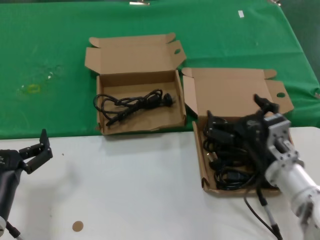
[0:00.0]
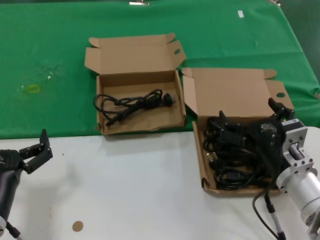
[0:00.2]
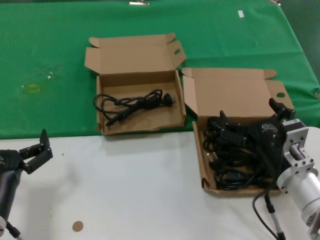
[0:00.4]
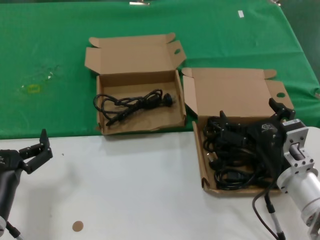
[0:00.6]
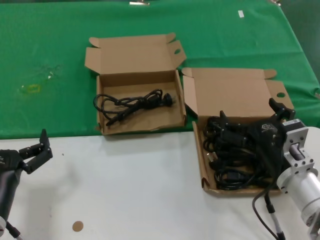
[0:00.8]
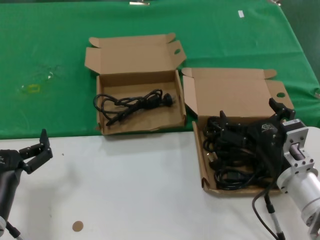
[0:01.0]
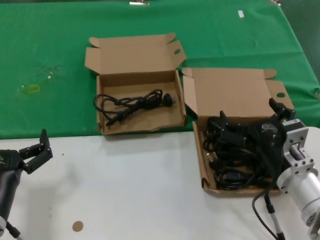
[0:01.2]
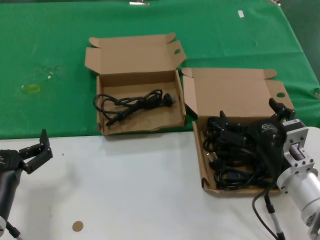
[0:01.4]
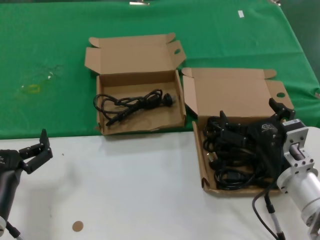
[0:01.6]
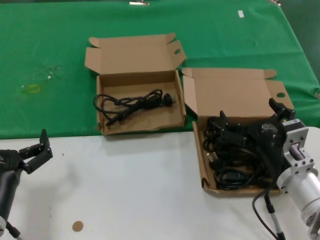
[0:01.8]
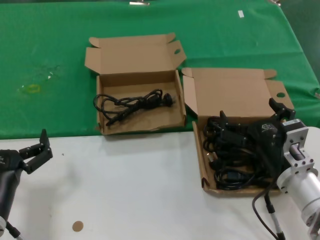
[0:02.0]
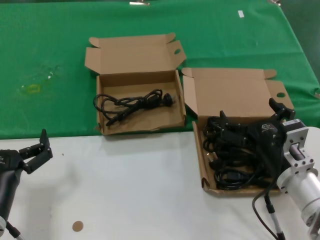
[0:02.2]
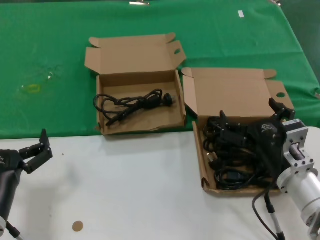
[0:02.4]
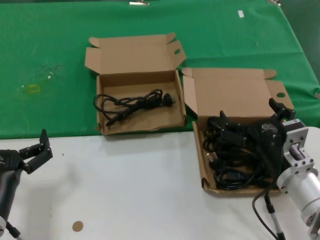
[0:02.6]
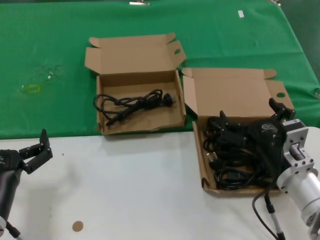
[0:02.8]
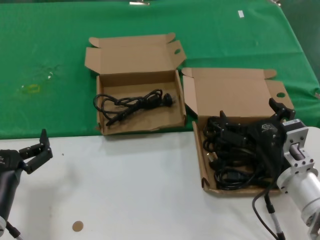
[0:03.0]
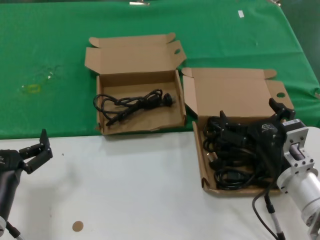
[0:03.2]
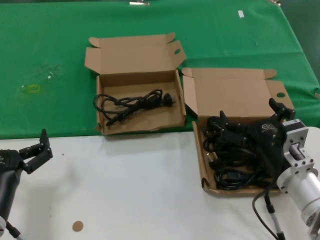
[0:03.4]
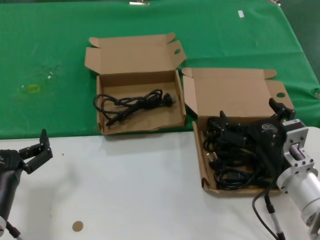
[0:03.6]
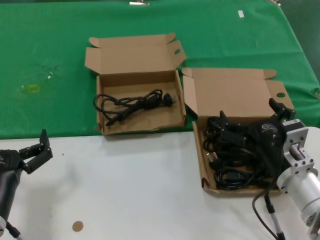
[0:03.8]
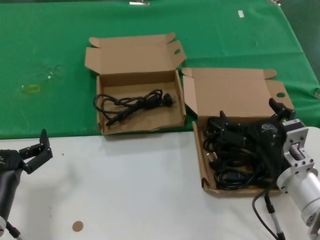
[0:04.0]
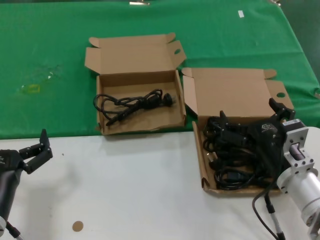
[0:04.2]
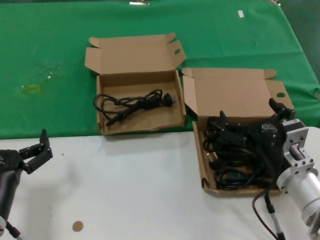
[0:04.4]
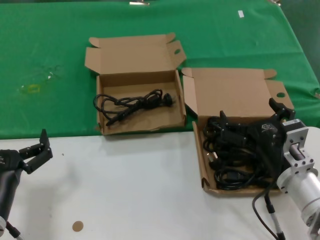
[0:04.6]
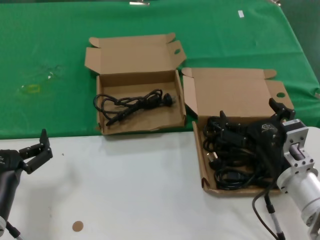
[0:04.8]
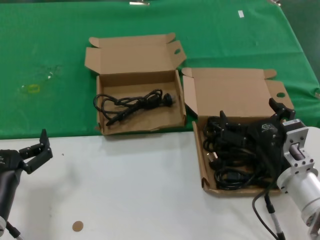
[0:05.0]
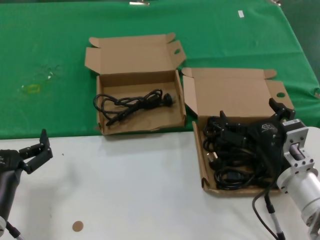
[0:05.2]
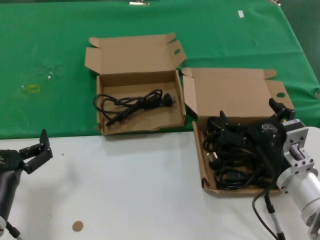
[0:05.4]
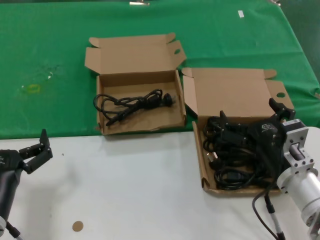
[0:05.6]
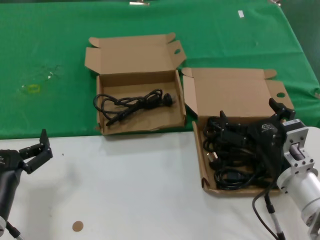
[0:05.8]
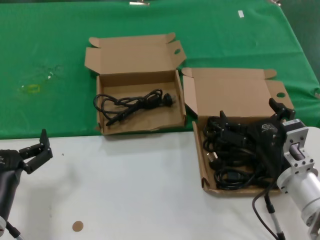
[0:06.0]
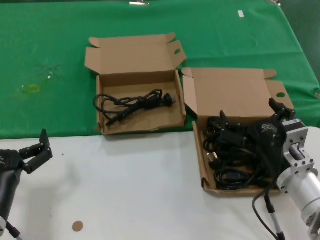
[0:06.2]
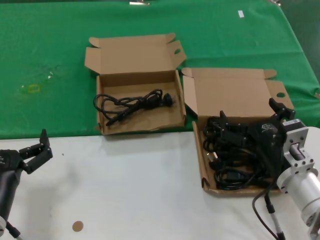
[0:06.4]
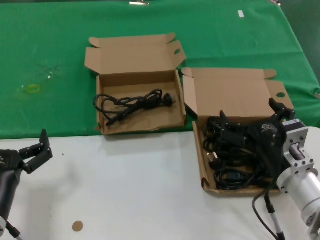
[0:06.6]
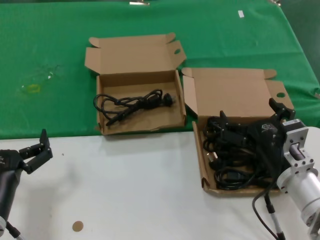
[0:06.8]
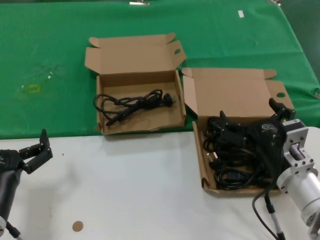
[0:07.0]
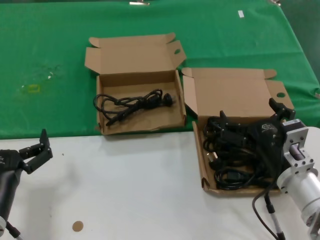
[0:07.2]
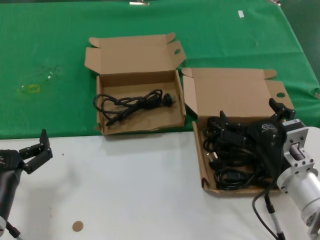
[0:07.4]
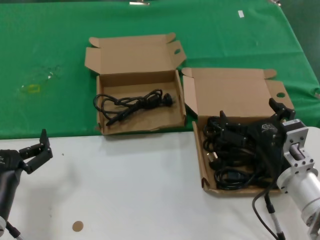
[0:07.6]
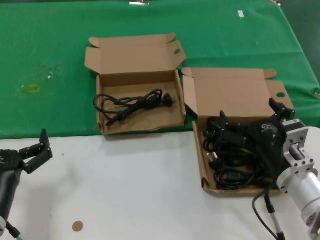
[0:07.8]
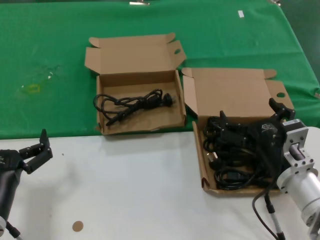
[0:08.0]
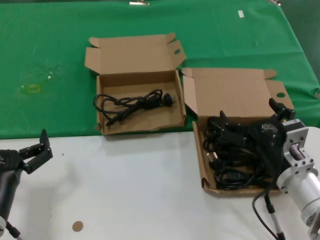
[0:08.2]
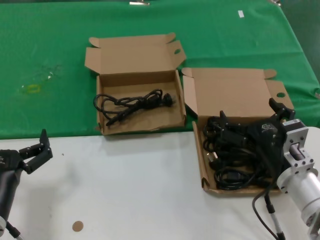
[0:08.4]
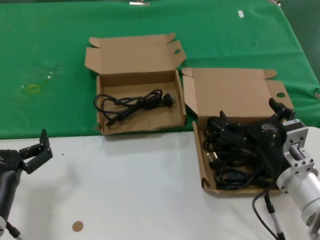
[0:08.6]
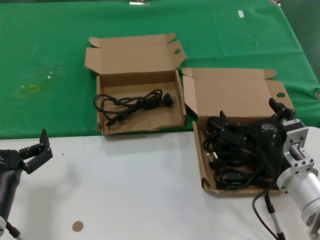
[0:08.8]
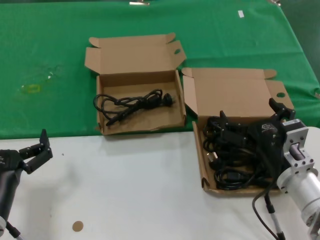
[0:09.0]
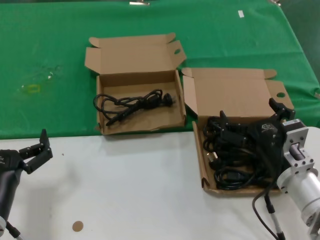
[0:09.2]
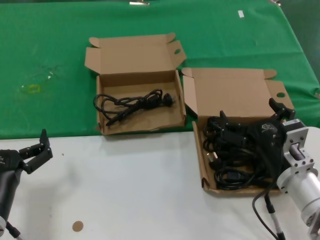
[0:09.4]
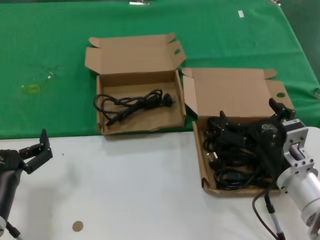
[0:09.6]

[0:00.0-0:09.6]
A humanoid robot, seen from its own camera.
Task of the whole recording: take the parts from the box containing them and put them into an empty box.
0:00.0 to 0:01.6: The hands stay close to where they were, moving slightly.
0:01.6 to 0:09.6: Both hands stay put.

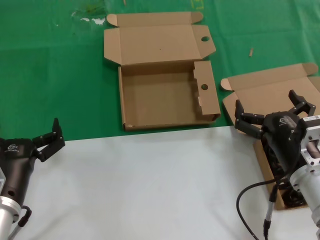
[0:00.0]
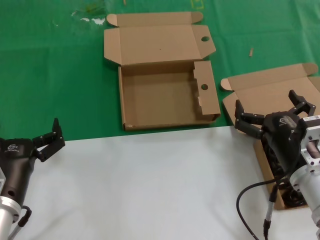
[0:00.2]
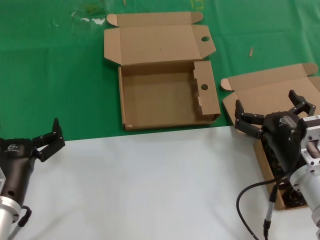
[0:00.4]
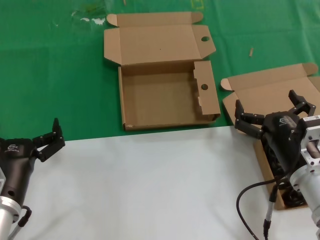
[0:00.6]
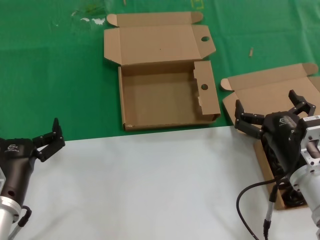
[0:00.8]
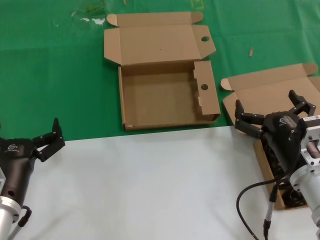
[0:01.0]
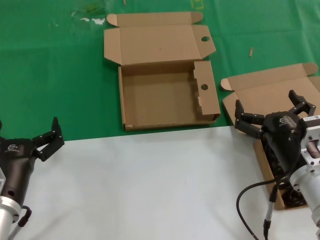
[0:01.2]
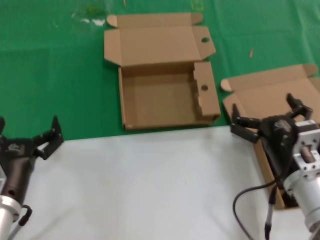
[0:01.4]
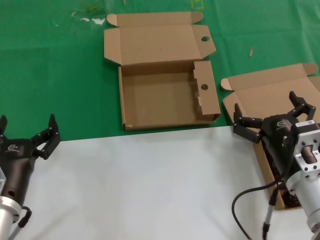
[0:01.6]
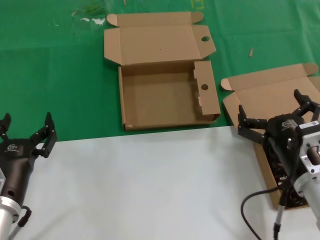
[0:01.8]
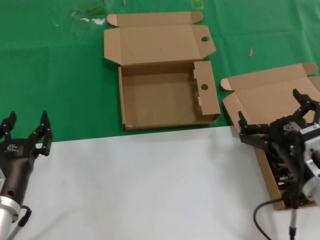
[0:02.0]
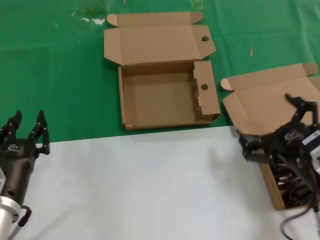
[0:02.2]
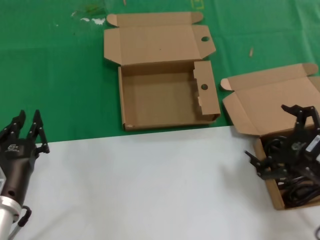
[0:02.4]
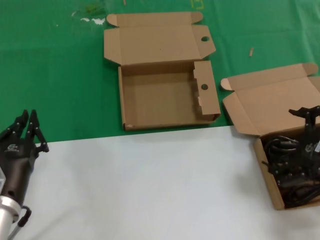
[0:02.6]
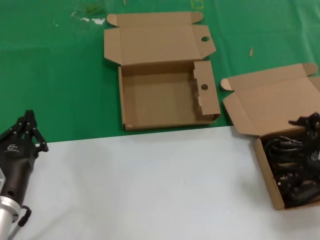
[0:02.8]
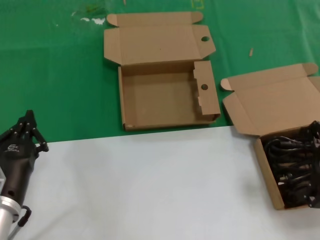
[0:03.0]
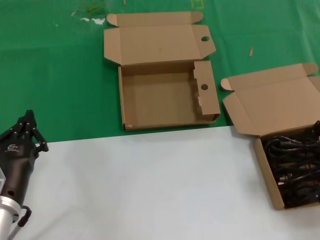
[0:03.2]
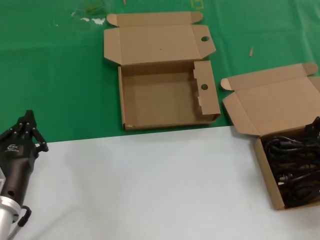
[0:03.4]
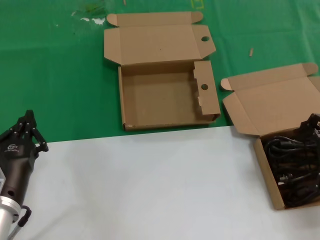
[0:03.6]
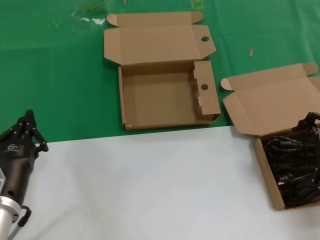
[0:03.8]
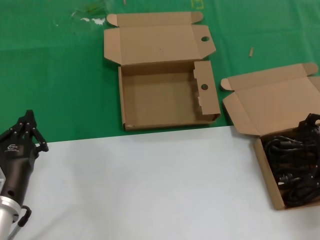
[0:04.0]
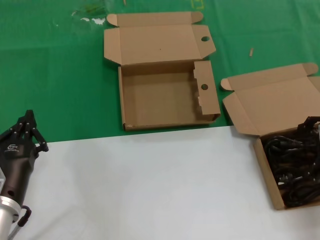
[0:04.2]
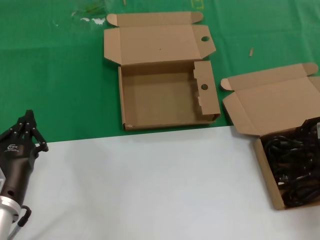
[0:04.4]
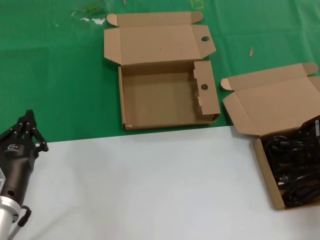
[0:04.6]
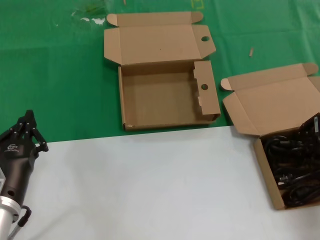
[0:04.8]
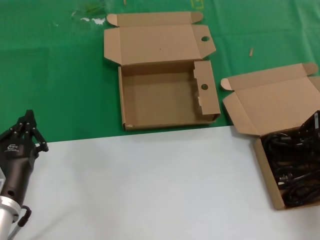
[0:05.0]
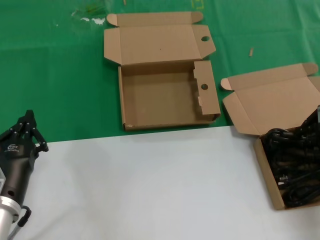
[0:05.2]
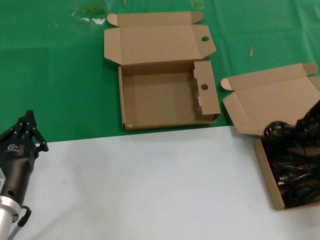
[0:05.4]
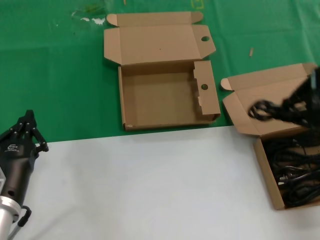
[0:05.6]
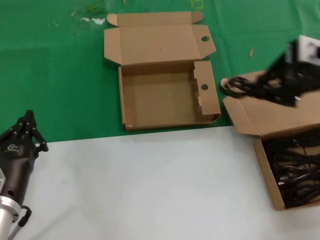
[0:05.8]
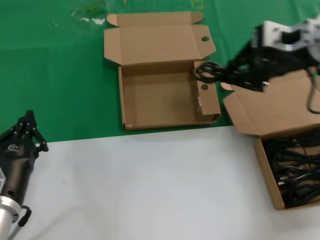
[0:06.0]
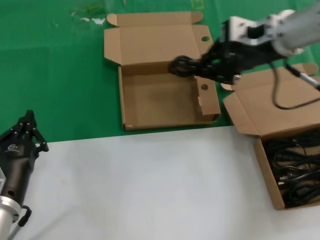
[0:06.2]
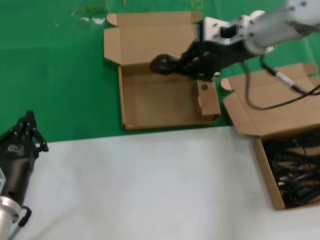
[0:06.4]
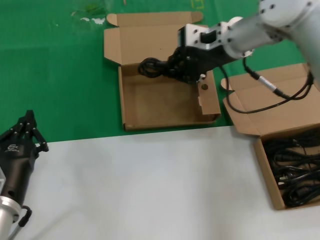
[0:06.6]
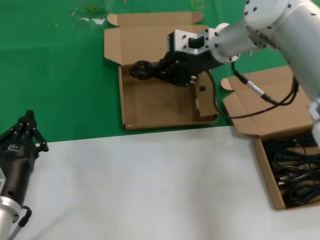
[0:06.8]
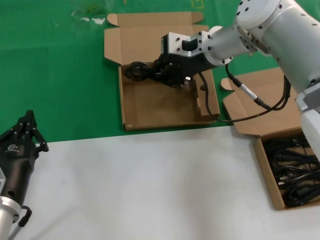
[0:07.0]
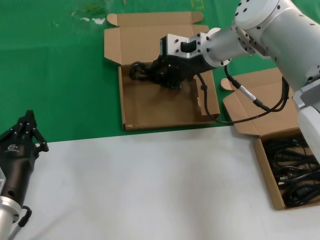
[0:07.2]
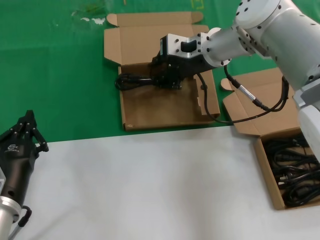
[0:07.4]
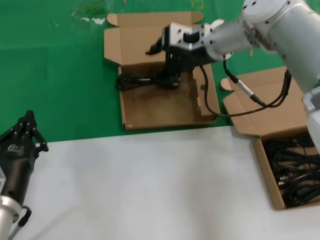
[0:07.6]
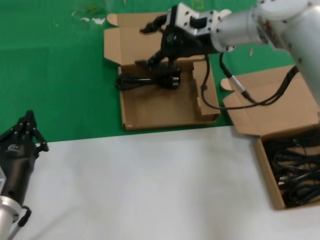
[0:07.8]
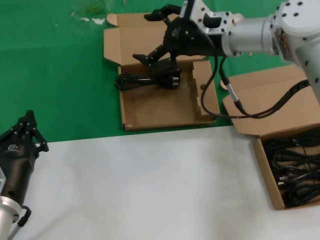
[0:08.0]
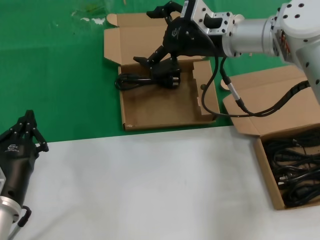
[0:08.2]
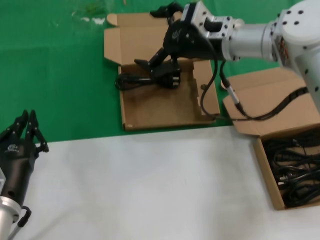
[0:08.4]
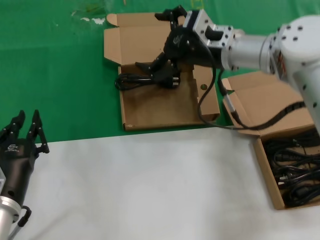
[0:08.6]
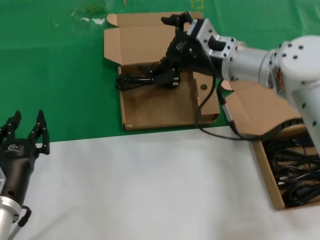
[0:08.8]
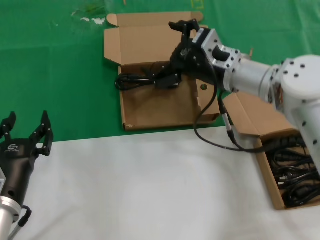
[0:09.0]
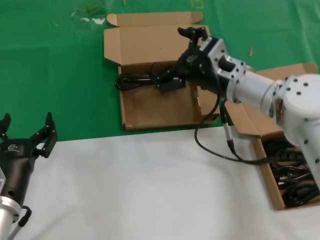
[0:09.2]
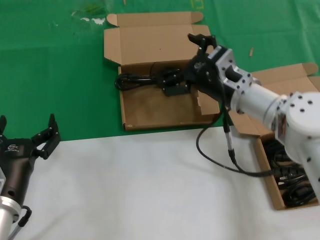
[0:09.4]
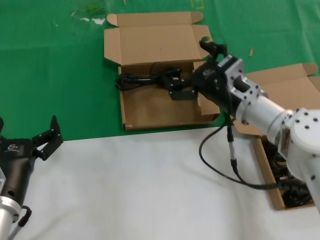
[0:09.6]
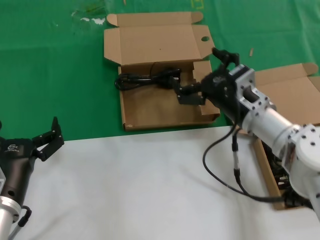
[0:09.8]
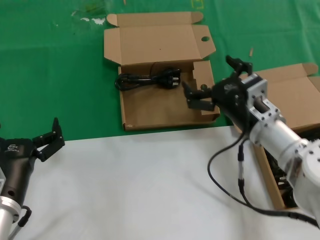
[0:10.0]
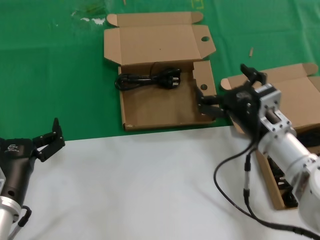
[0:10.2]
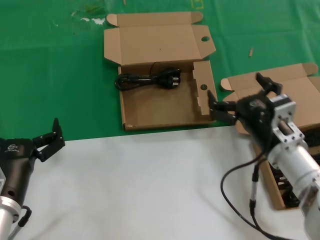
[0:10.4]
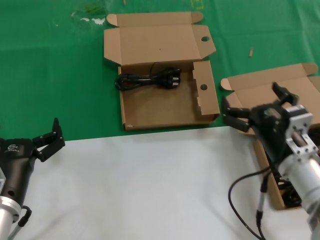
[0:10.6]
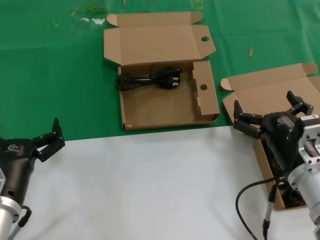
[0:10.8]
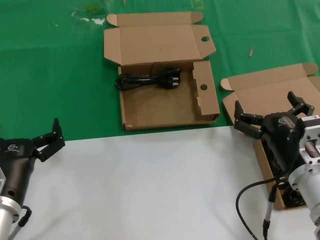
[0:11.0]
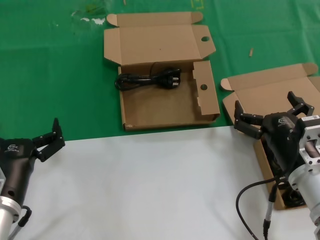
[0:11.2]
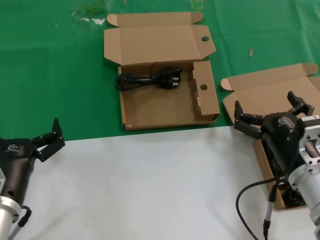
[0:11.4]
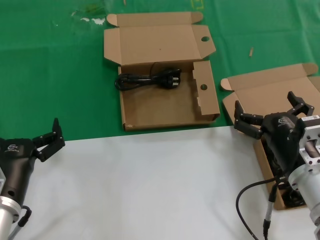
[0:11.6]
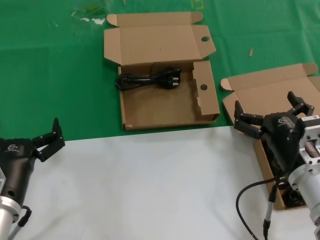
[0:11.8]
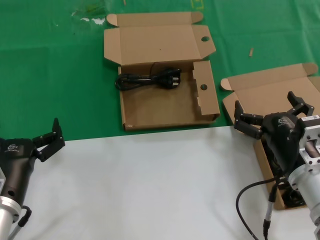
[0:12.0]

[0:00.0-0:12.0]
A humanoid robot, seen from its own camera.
Task of the whole recording: take the parts from the box containing them and put them into an empty box.
Step, 0:00.0 to 0:04.8: Grasp the data cable.
Step, 0:05.0 to 0:07.8: Place the data cable in the another box.
0:00.0 to 0:01.6: Both hands stay about where they are.
0:01.6 to 0:03.0: The right hand is displaced to the right and upward by about 20 cm.
0:03.0 to 0:04.4: The right hand travels forward by roughly 10 cm.
0:04.4 to 0:06.0: The right hand travels upward, to the left and forward by roughly 20 cm.
0:06.0 to 0:07.6: The right hand is displaced forward, to the left and downward by roughly 20 cm.
0:07.6 to 0:09.0: The right hand is displaced downward and backward by some 10 cm.
0:09.0 to 0:10.4: The right hand heads backward and downward, covering approximately 20 cm.
0:10.4 to 0:12.0: The right hand moves backward, about 5 cm.

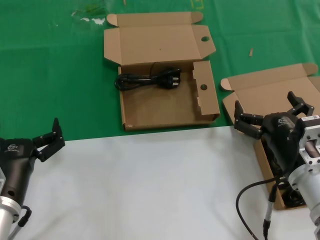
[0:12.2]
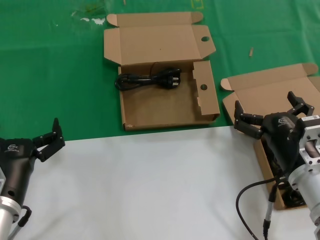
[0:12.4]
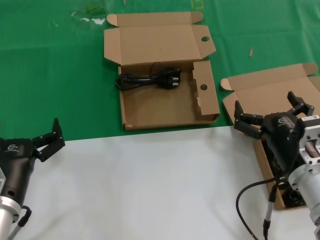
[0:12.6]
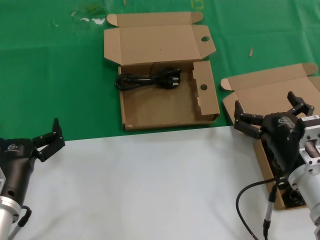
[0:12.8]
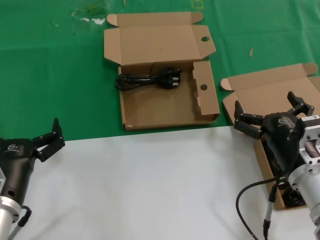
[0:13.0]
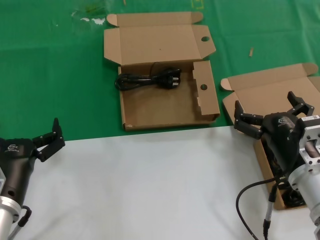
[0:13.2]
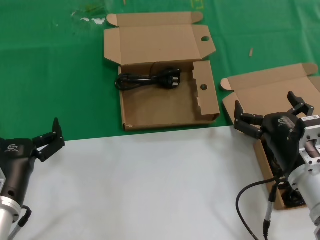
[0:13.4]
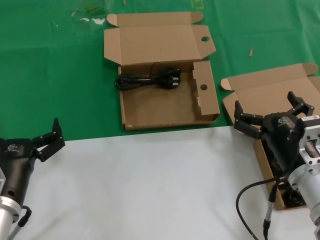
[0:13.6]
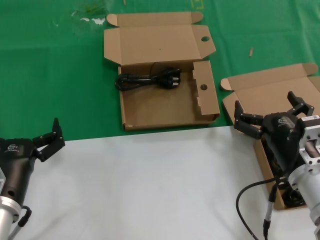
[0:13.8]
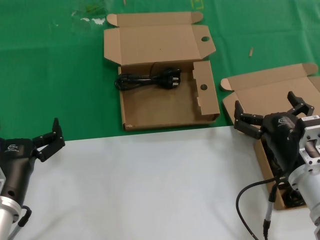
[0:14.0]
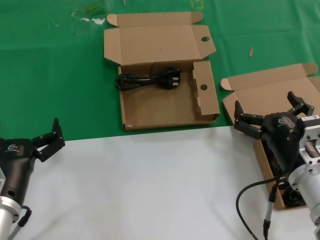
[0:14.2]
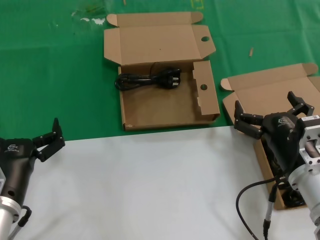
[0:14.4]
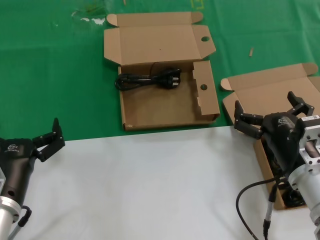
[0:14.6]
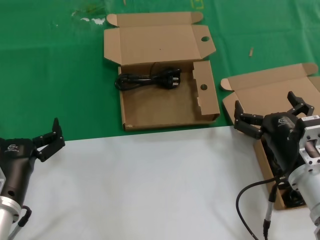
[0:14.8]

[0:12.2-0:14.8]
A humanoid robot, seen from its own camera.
Task of the whole recording: take the parts from the box containing them and put them into an empty box.
0:12.2 to 0:14.8: Neither hand changes place.
